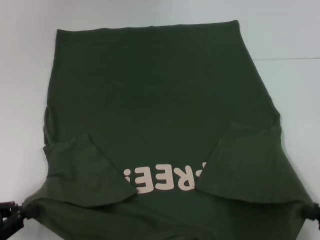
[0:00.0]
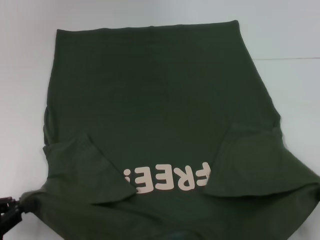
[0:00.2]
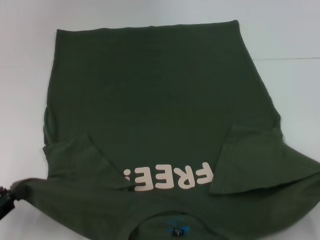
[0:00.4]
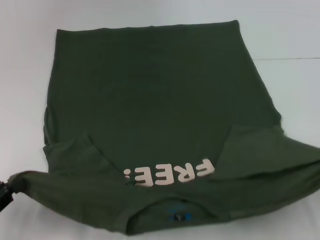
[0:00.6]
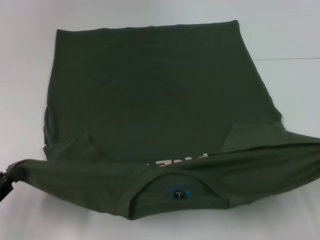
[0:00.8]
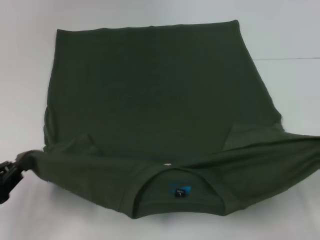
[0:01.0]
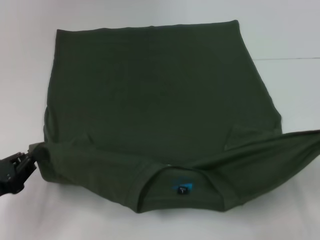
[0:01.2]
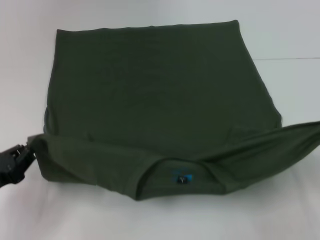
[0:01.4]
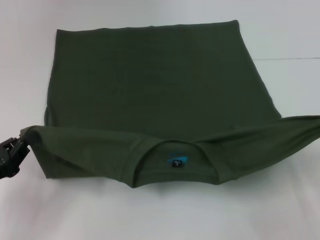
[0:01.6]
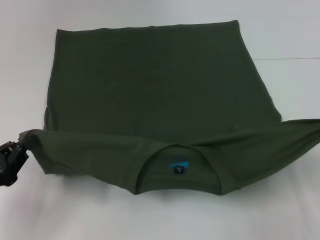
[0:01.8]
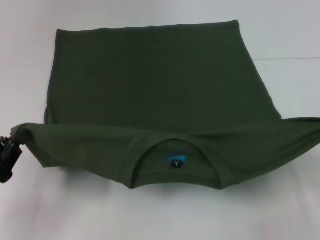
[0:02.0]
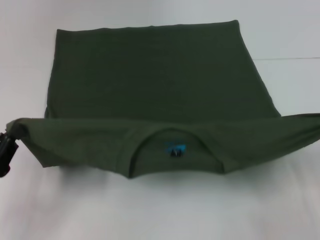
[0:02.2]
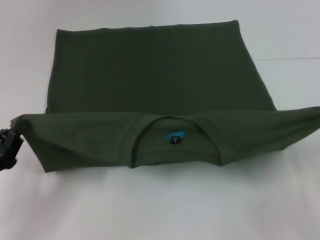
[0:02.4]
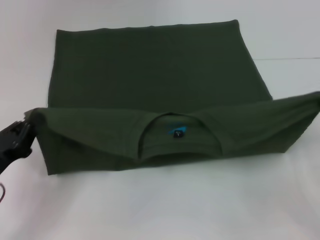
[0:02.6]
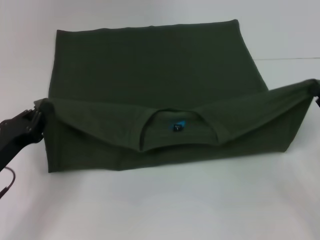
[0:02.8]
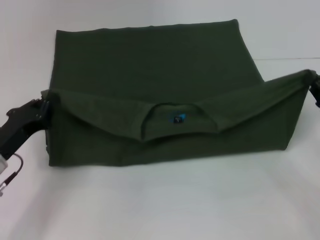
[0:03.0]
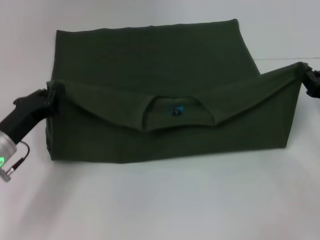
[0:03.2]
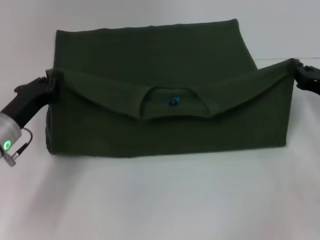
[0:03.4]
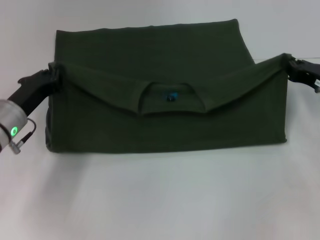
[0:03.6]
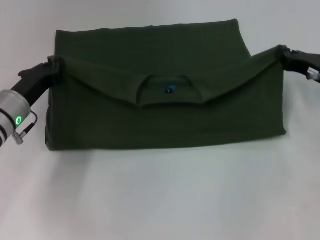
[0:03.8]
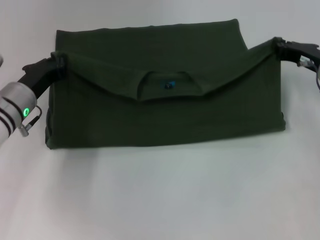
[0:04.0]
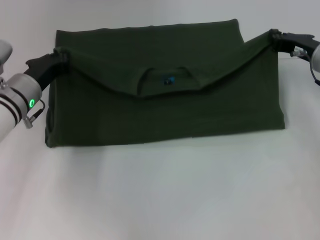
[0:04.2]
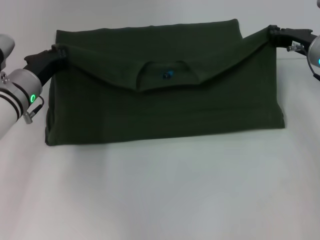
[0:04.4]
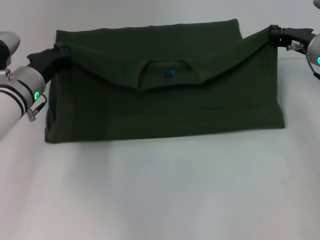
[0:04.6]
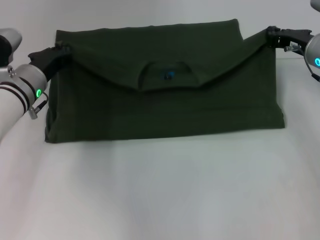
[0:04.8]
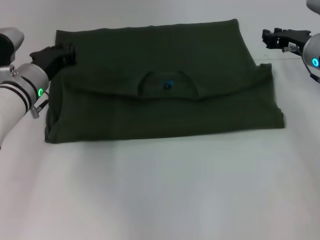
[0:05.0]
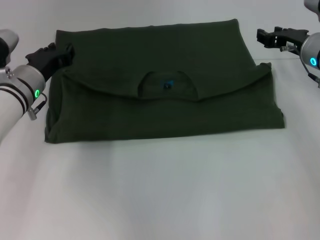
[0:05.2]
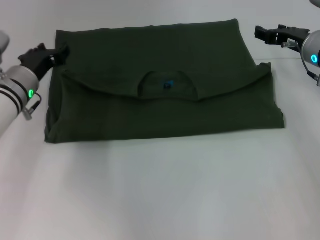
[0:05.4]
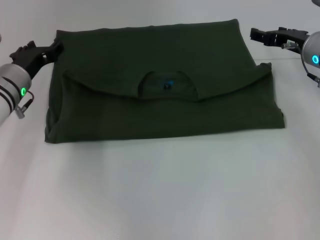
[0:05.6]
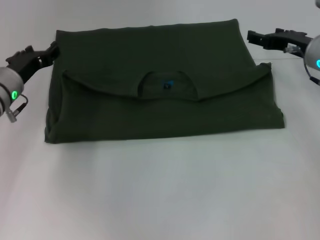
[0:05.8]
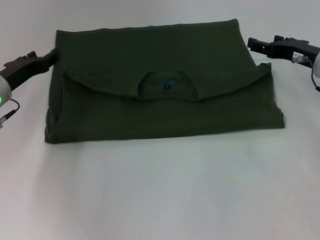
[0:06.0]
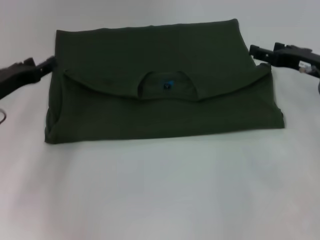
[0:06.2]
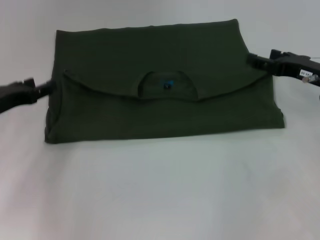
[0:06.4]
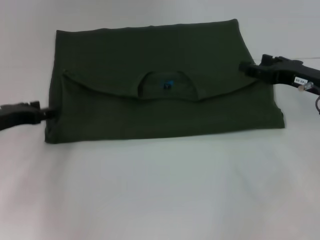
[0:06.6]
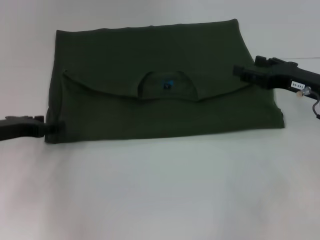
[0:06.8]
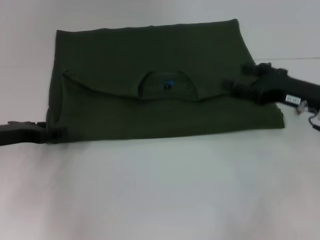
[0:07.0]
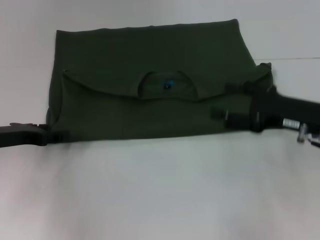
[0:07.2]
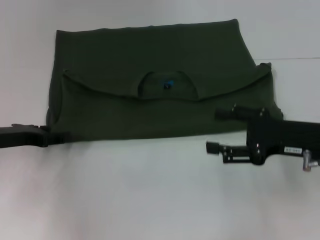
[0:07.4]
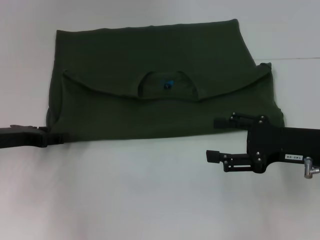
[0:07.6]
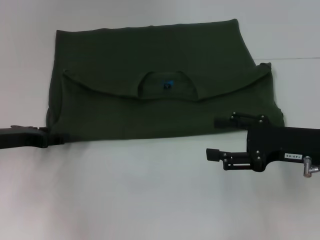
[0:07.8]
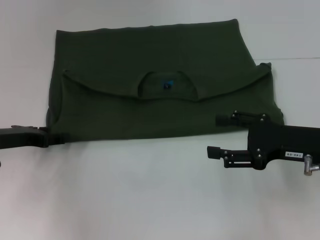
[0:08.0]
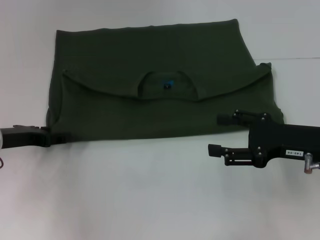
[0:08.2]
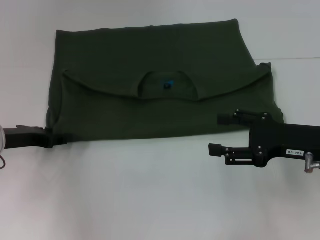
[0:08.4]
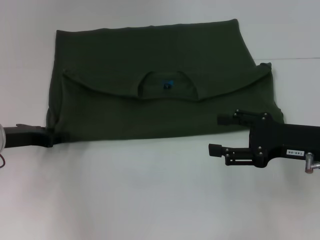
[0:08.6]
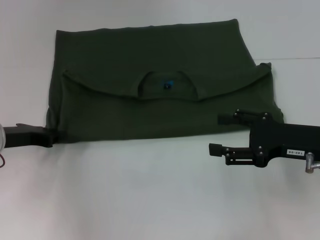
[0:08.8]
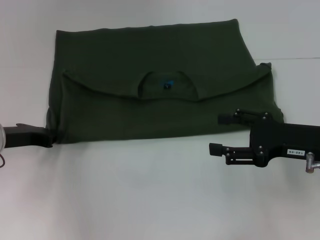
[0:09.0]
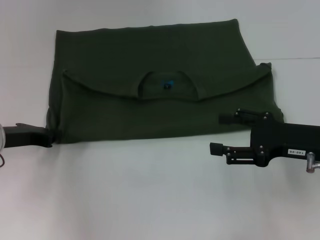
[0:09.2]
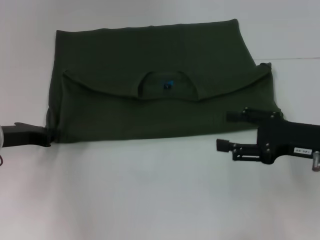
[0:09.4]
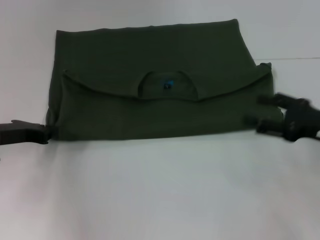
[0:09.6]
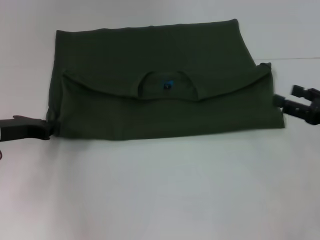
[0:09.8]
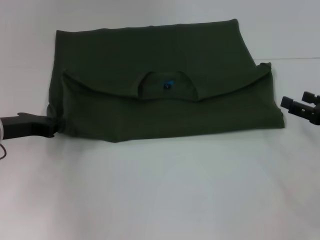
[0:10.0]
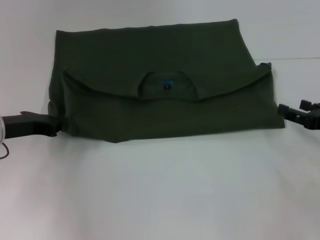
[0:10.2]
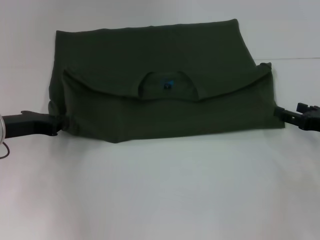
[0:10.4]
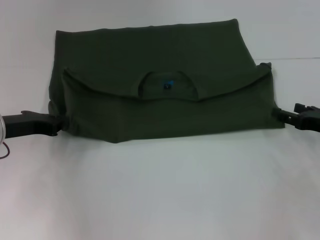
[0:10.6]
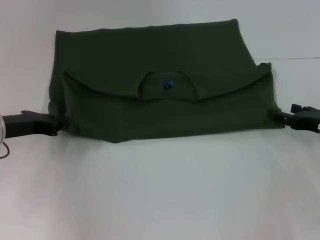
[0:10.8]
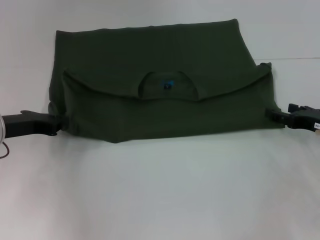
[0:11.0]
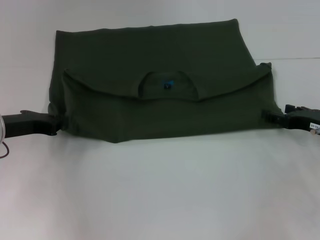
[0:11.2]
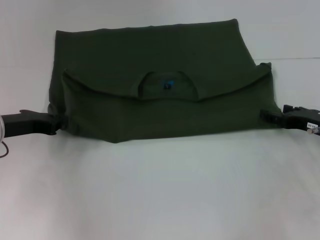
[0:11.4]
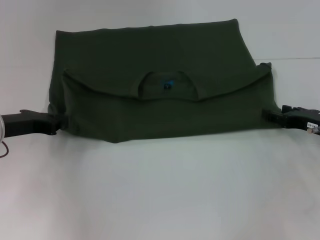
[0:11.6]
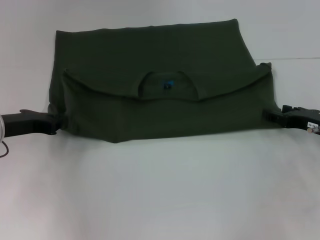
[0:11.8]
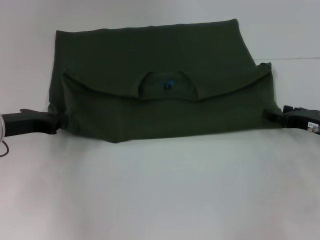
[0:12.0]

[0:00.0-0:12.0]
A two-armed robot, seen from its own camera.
Step, 0:00.0 to 0:05.0: Fold the clothes with your left hand.
Step, 0:00.0 to 0:05.0: Fold the clothes with your right hand.
0:00.0 to 0:01.6: The left gripper changes place by roughly 5 cm.
0:01.6 to 0:03.0: Both grippers move forward, about 10 cm.
0:03.0 to 0:04.4: The right gripper goes some 15 cm forward and to the left. The left gripper goes some 10 cm forward.
0:04.4 to 0:06.0: The right gripper opens. The left gripper heads to the left, covering approximately 5 cm, and opens its fingers.
0:06.0 to 0:07.6: The left gripper heads backward, covering some 5 cm, while the right gripper heads backward, covering some 10 cm.
0:07.6 to 0:09.0: The left gripper closes its fingers.
0:09.0 to 0:10.4: The right gripper moves to the right, roughly 10 cm.
0:10.4 to 0:12.0: There are only small adjustments of the grippers.

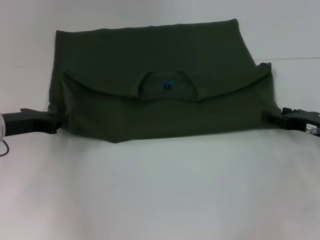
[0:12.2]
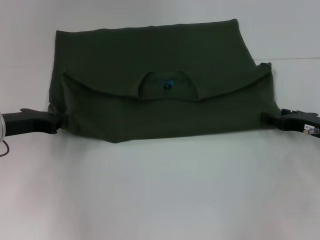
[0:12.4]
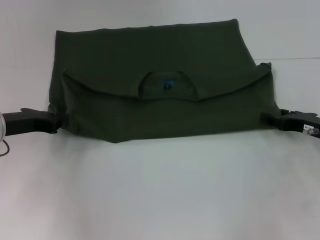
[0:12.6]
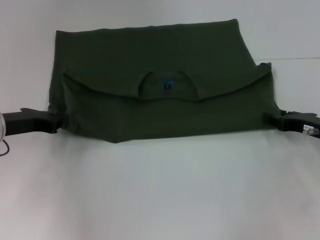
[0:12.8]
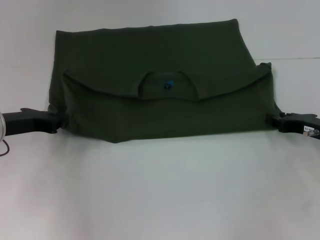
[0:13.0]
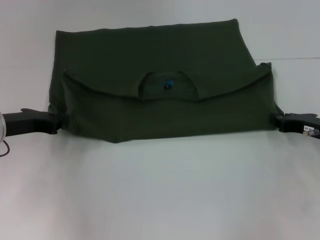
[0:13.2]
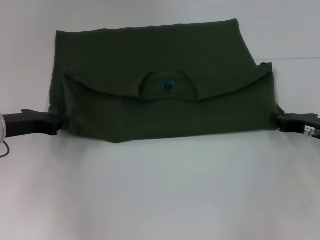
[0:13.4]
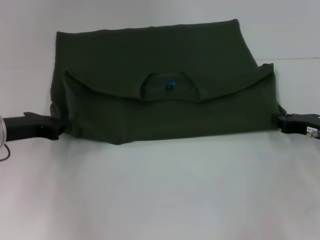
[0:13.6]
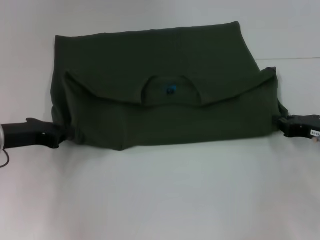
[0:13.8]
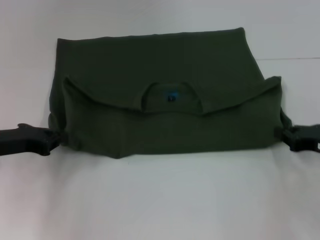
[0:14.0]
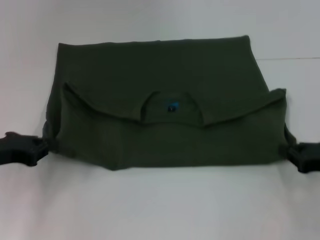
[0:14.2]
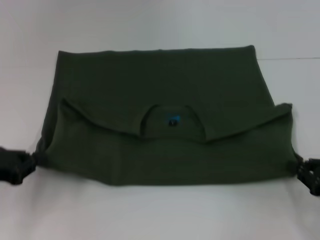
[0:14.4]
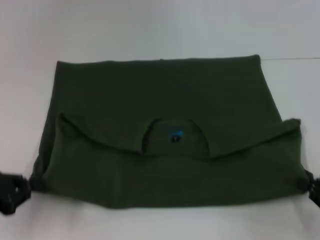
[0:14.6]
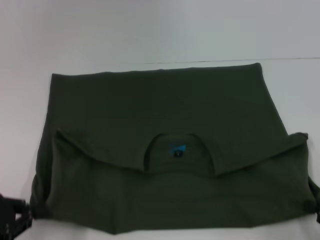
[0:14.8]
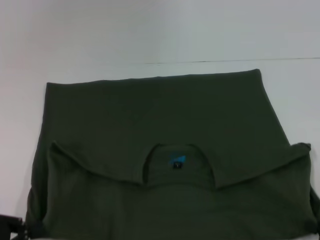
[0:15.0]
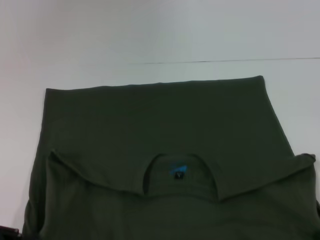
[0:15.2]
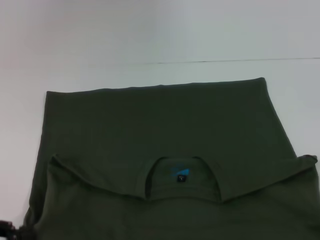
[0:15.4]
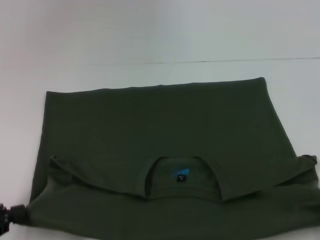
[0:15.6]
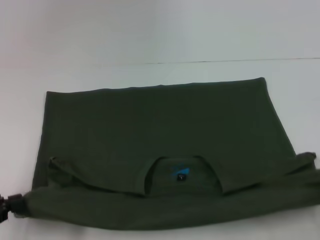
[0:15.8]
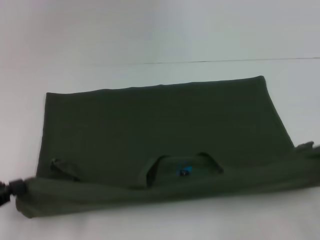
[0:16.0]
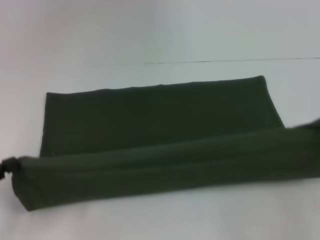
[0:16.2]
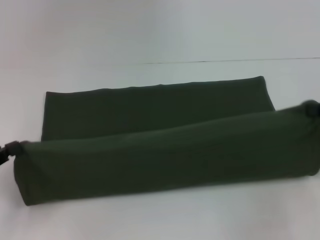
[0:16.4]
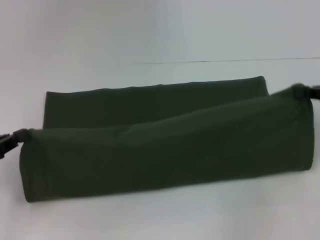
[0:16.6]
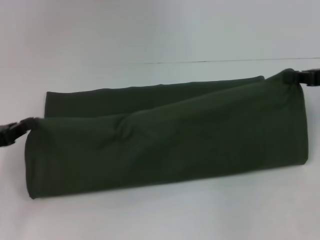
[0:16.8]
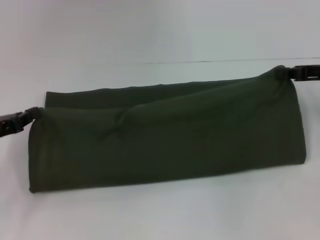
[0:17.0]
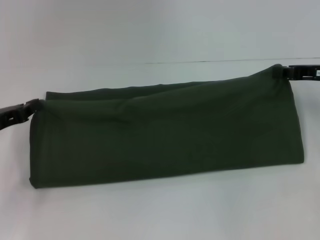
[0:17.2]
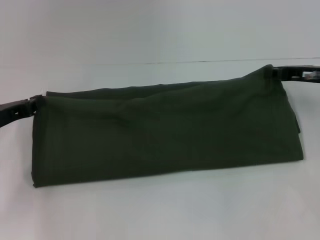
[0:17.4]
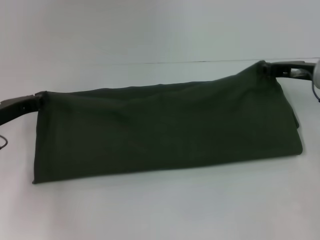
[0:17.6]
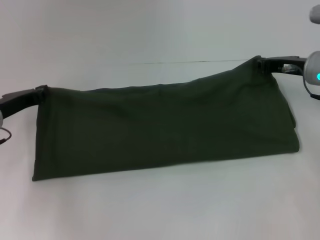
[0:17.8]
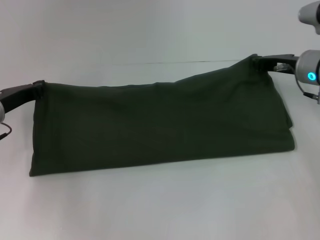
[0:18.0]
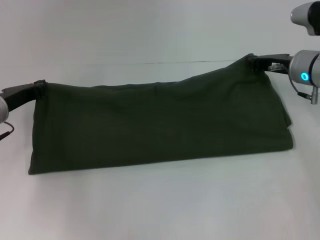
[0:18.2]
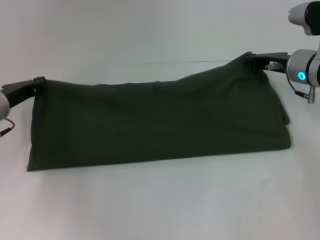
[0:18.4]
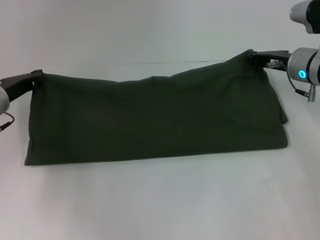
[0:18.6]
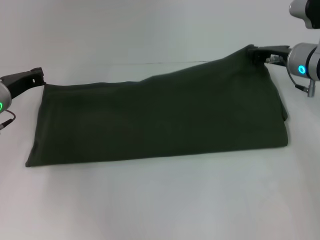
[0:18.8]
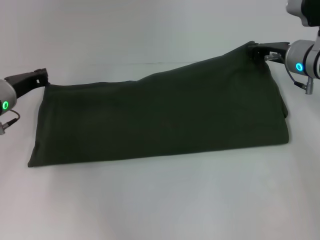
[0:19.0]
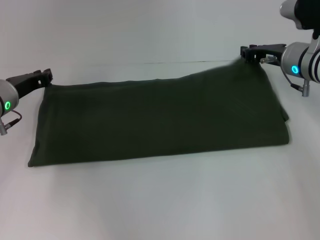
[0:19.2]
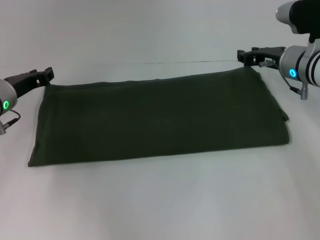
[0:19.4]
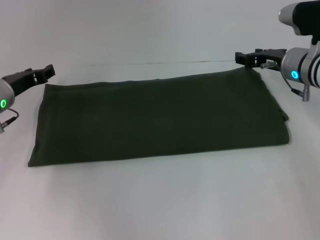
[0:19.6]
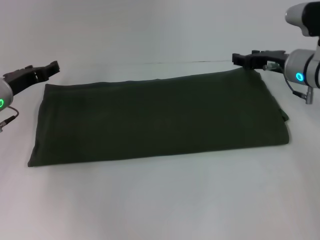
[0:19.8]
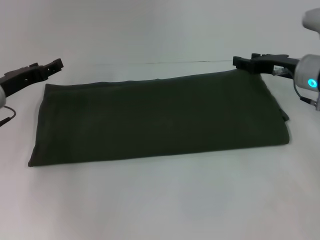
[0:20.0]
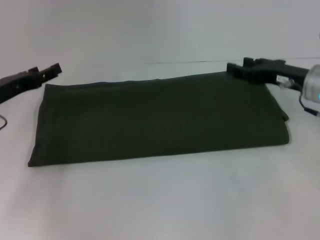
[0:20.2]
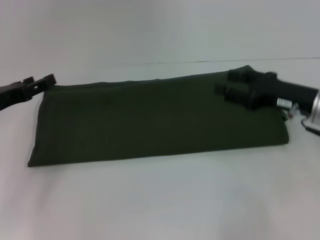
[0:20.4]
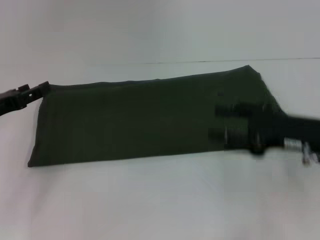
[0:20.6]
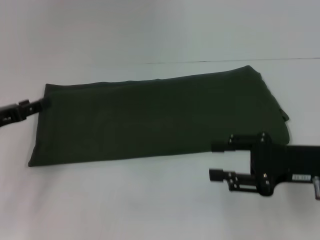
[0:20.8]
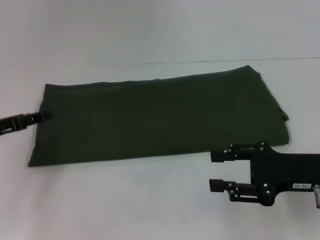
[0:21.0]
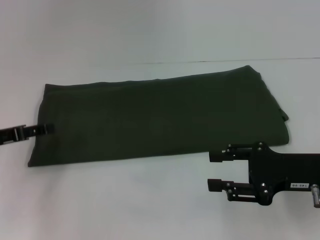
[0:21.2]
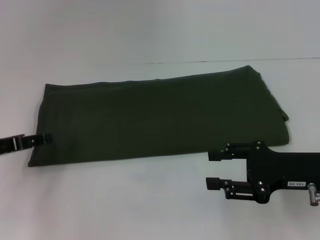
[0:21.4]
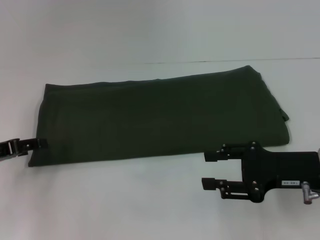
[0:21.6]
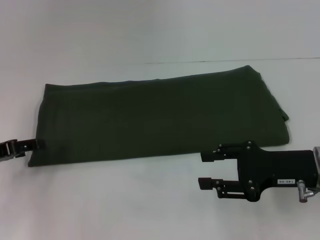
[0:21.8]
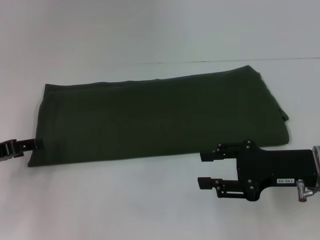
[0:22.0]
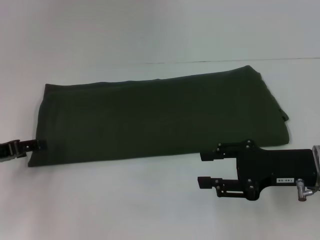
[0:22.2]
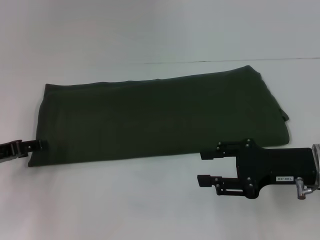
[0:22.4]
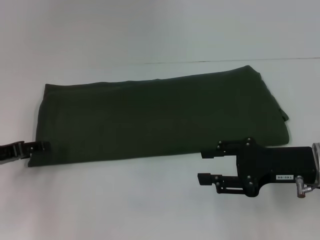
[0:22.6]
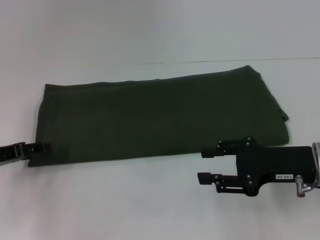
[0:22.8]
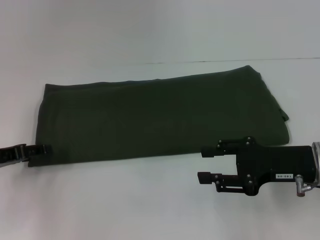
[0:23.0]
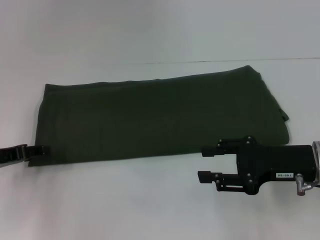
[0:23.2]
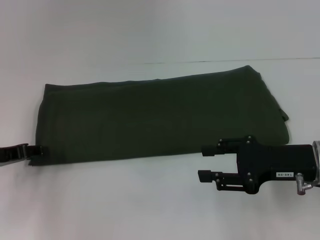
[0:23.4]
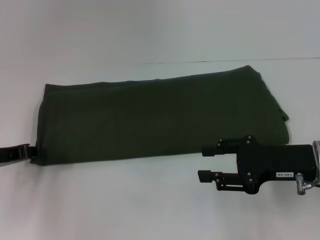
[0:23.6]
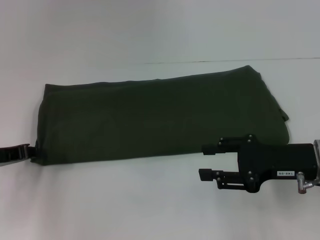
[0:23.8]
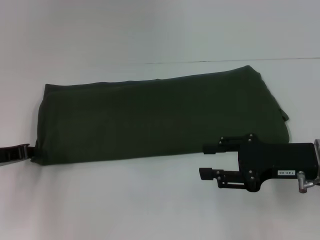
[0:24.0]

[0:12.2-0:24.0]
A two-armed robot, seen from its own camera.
Step, 0:12.2 to 0:15.2: Pull the clothes with your left hand.
Step, 0:12.2 to 0:15.2: Pull the clothes with your right hand.
Step, 0:15.4 to 0:18.8: Fold the clothes with your left hand.
Step, 0:19.0 to 0:19.2: Fold the clothes with your right hand.
0:12.2 to 0:13.6: The right gripper closes.
0:13.6 to 0:15.2: Both grippers move backward, some 20 cm.
0:15.2 to 0:16.6: The left gripper shifts approximately 10 cm forward. Meanwhile the right gripper shifts some 25 cm forward and upward.
0:16.6 to 0:18.2: The left gripper moves forward and to the right, some 15 cm. The right gripper is displaced to the left and forward by some 15 cm.
0:18.2 to 0:19.6: The left gripper opens its fingers, while the right gripper opens its fingers.
0:19.6 to 0:21.0: The left gripper heads backward and to the left, covering roughly 10 cm, and opens up. The right gripper is displaced backward by about 20 cm.
0:21.0 to 0:22.6: The grippers move only a little.
0:22.6 to 0:24.0: The left gripper closes up.
